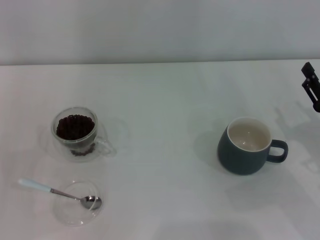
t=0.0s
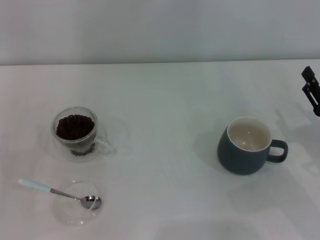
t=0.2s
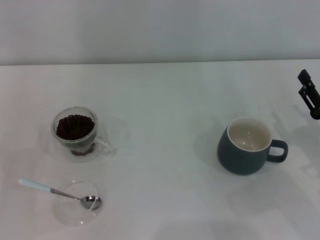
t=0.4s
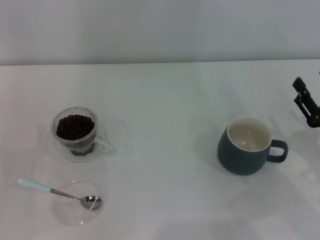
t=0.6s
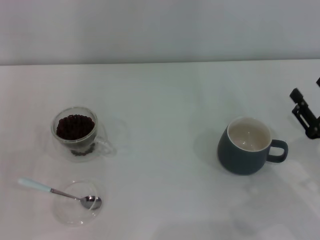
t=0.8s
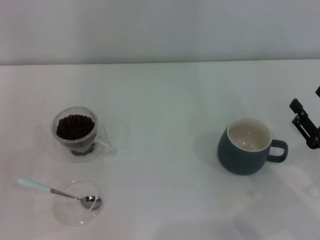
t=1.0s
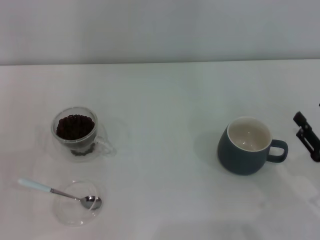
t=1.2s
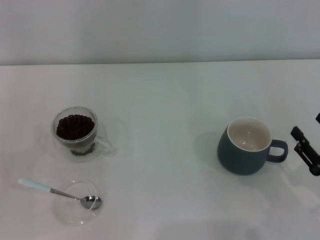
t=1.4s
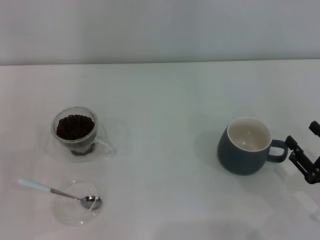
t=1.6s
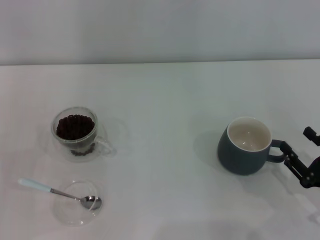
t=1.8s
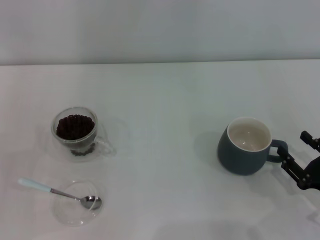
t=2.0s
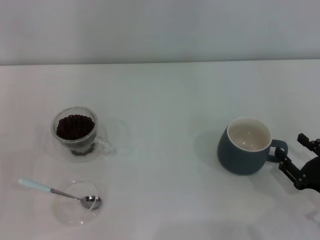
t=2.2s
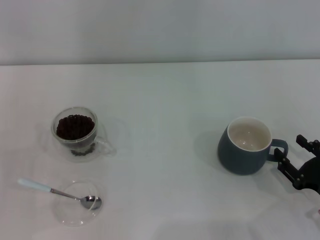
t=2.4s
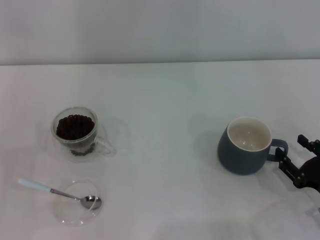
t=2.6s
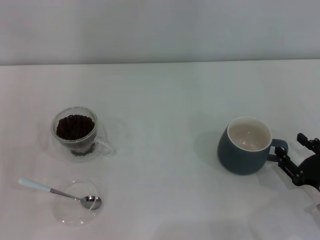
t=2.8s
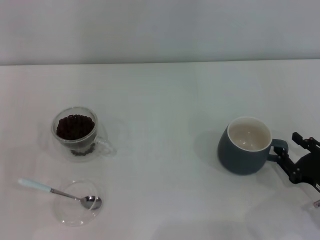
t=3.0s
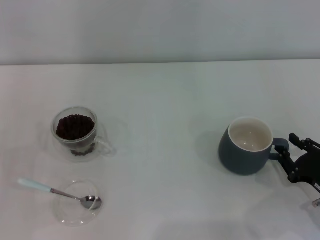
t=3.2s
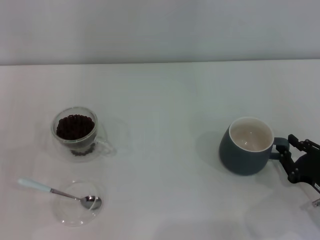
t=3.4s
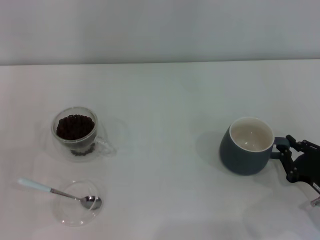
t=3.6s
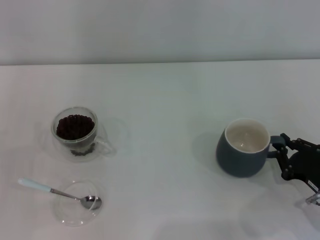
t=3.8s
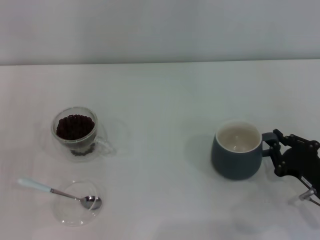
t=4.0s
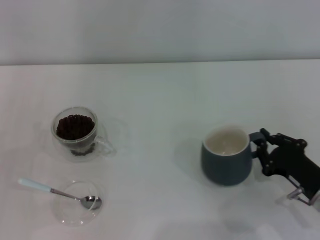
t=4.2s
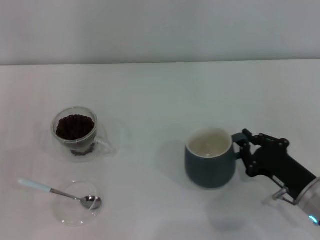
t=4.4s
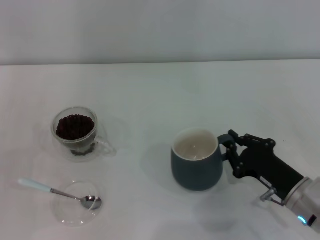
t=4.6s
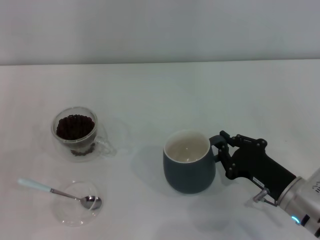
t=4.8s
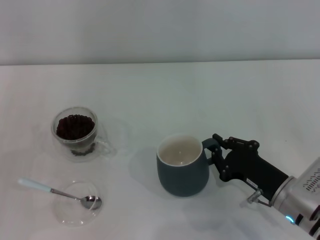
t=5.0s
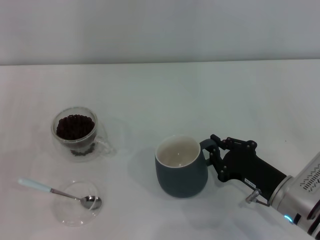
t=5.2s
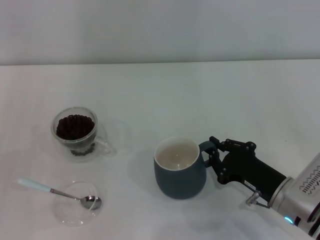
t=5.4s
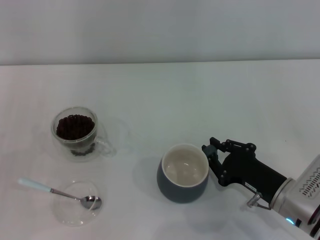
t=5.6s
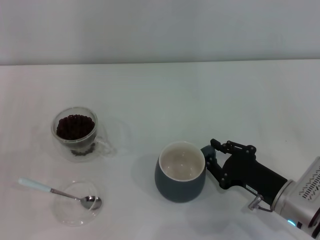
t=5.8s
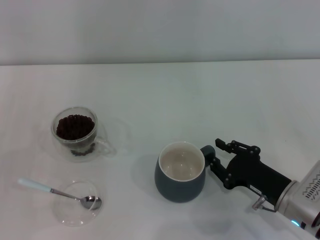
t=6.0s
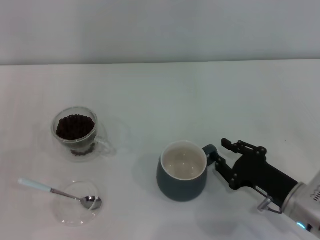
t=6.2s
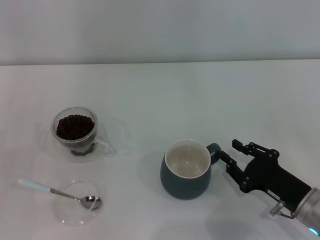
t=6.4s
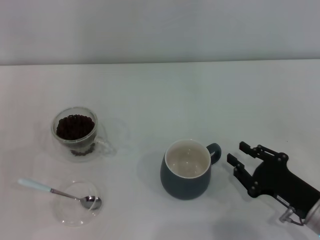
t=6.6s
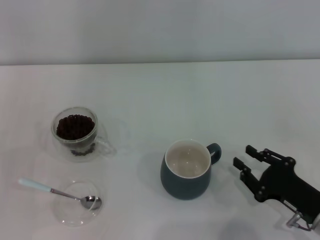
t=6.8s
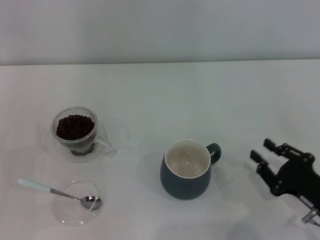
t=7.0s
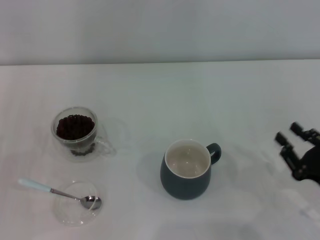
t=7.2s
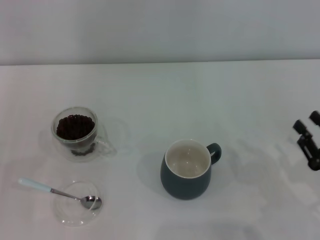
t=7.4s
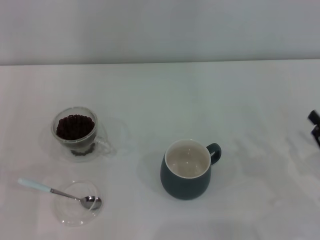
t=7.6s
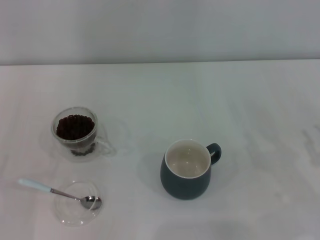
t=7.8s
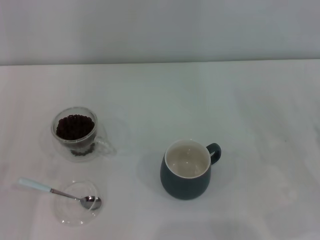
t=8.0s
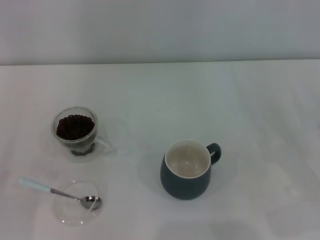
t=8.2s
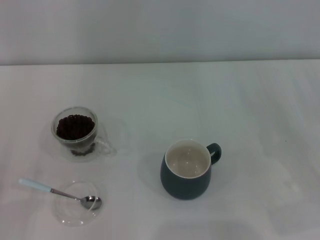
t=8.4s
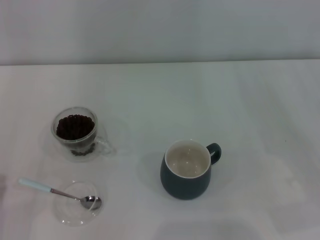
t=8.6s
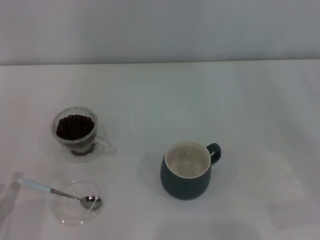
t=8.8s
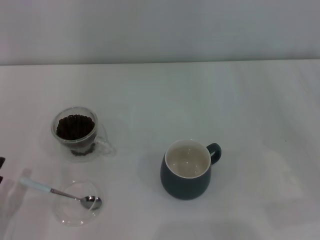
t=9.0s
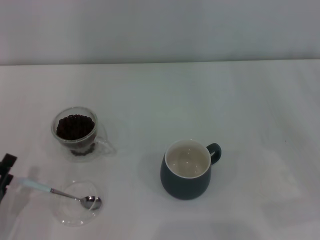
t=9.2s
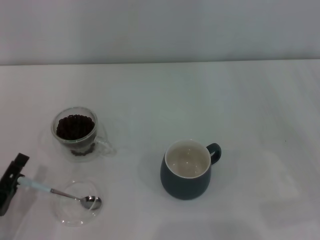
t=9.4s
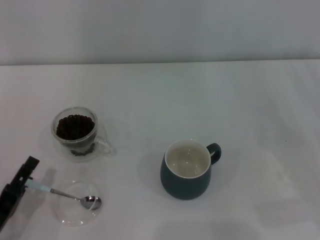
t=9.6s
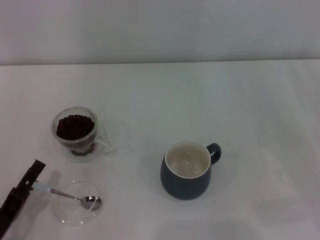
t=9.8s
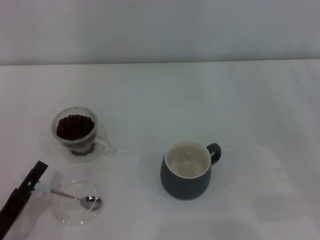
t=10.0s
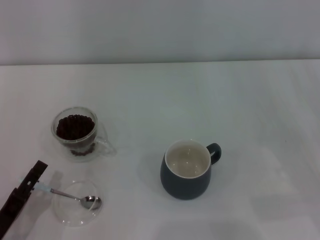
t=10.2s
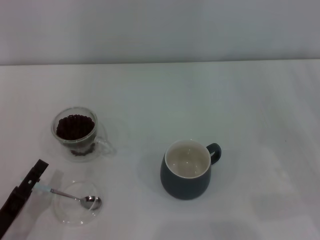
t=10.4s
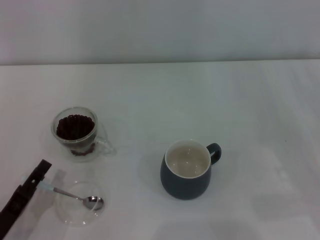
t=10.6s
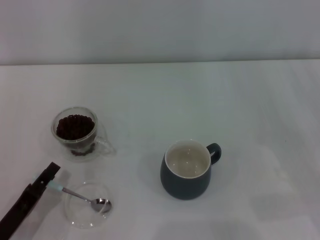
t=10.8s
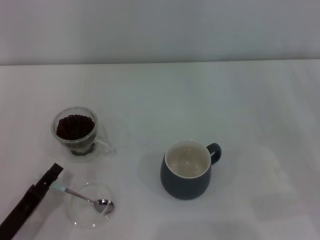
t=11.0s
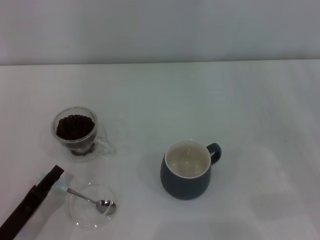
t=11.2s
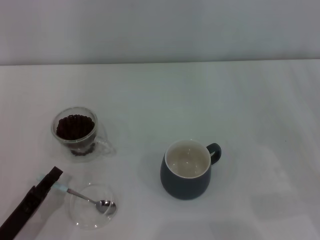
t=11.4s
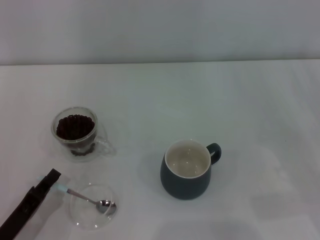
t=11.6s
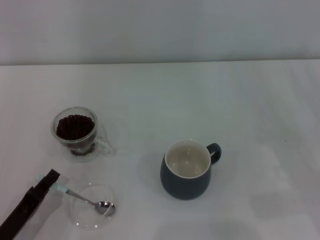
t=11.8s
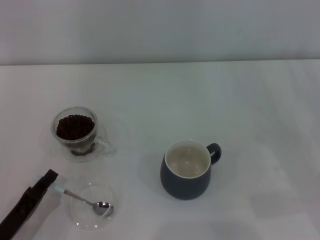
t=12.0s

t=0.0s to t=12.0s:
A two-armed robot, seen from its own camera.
Task of the whole recording: Use a blue spoon to take out the coffee beans from the glass and pour them into the gray cup.
t=0.0s to t=1.6s: The right gripper is displaced backward by approximately 5 cm.
t=1.6s to t=3.0s: The grippers make only small movements.
t=3.0s to t=4.4s: The right gripper is displaced to the left by about 5 cm, and closes its fingers.
t=4.4s to t=6.0s: The grippers stay close to where they were, moving slightly.
t=6.0s to t=7.6s: The right gripper heads to the right, covering some 10 cm.
t=7.6s to t=9.0s: The left gripper ends up some 5 cm from where it was.
t=9.0s to t=10.4s: The grippers stay close to where they were, moving slightly.
t=10.4s to t=12.0s: The left gripper closes its fingers.

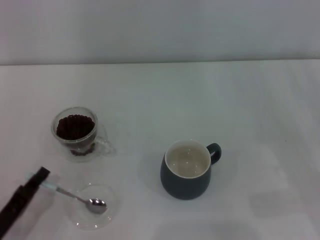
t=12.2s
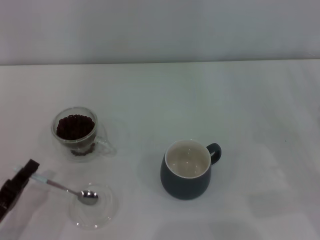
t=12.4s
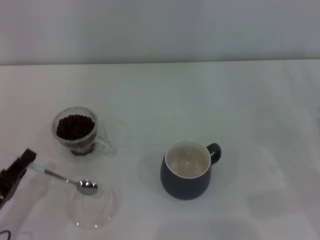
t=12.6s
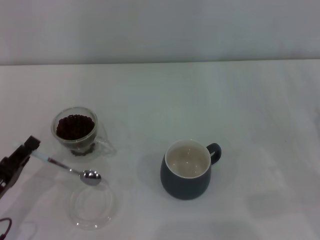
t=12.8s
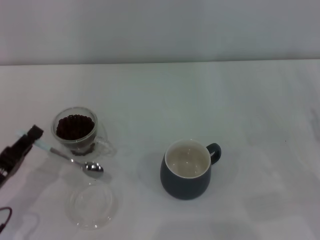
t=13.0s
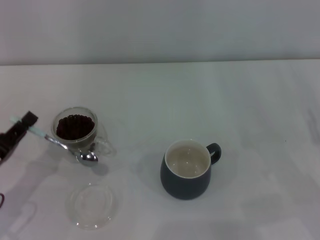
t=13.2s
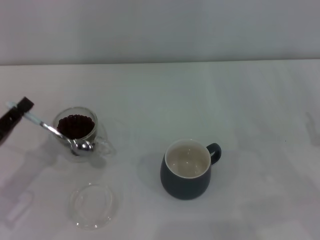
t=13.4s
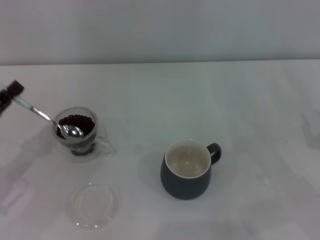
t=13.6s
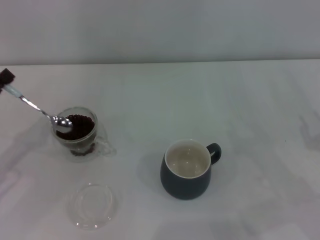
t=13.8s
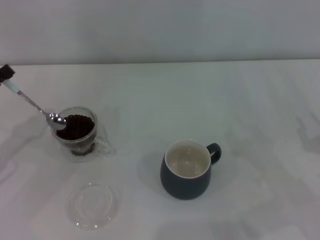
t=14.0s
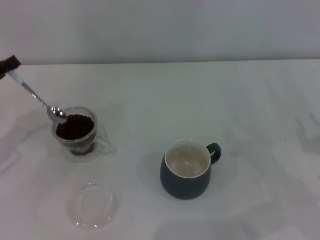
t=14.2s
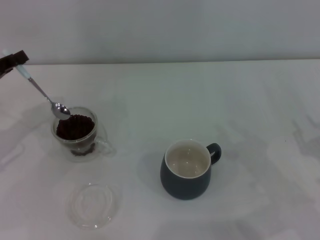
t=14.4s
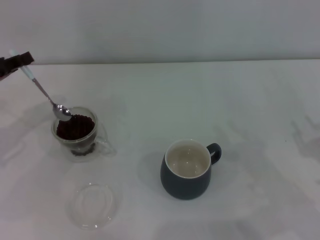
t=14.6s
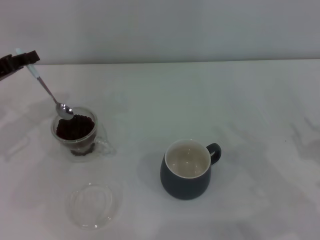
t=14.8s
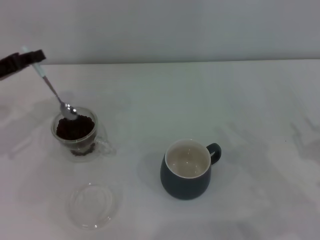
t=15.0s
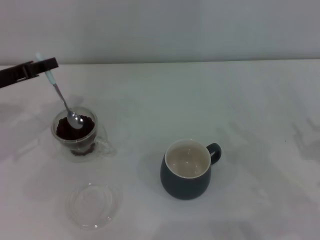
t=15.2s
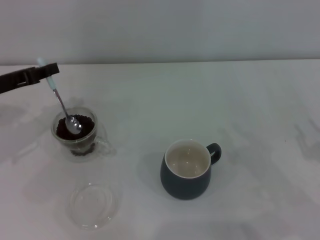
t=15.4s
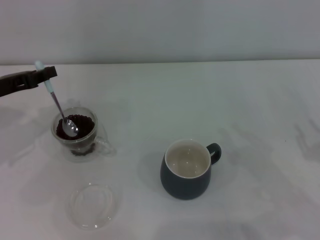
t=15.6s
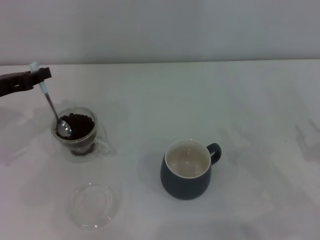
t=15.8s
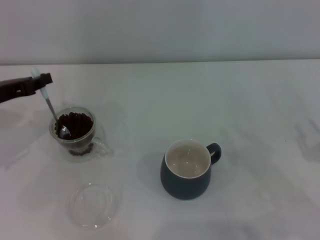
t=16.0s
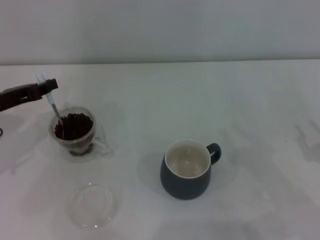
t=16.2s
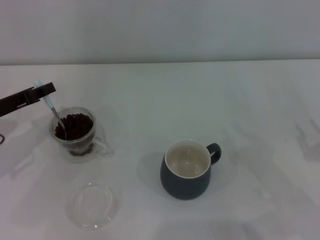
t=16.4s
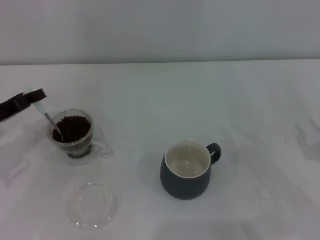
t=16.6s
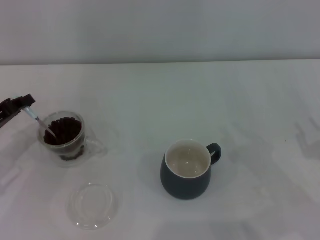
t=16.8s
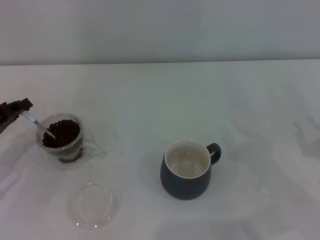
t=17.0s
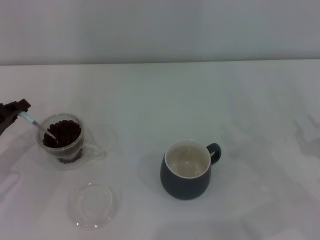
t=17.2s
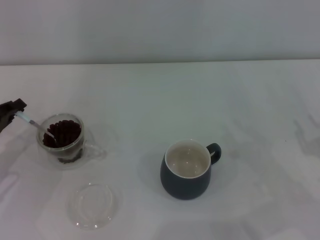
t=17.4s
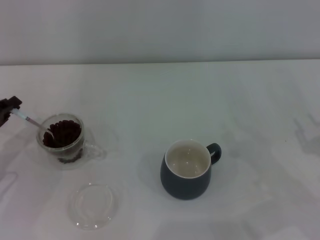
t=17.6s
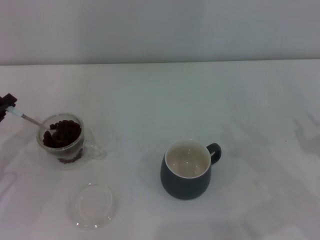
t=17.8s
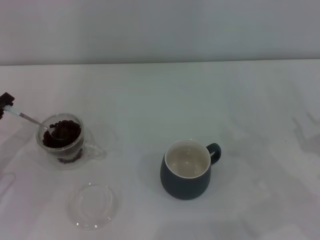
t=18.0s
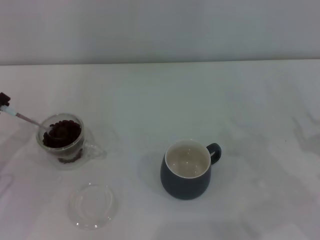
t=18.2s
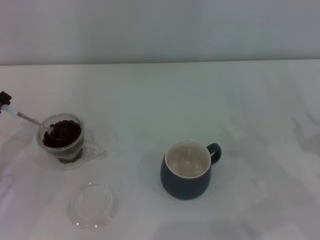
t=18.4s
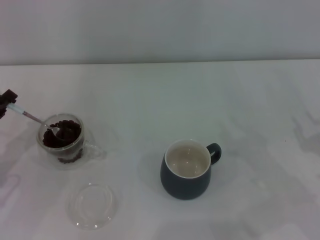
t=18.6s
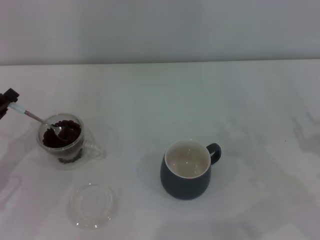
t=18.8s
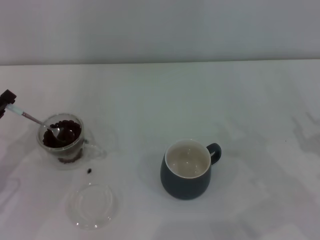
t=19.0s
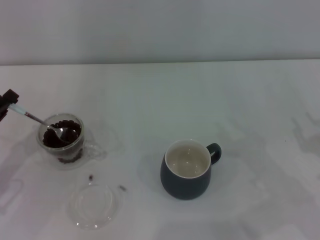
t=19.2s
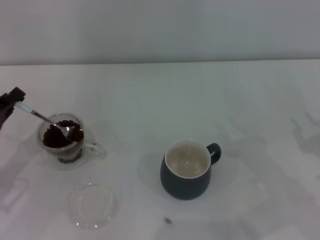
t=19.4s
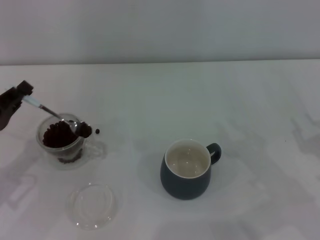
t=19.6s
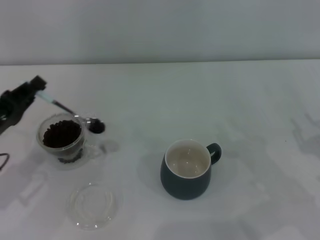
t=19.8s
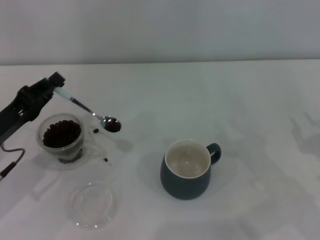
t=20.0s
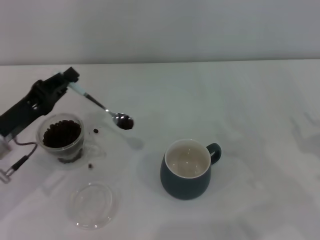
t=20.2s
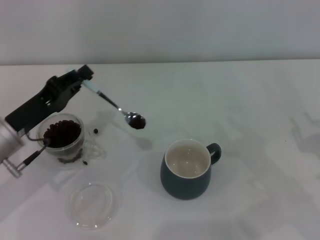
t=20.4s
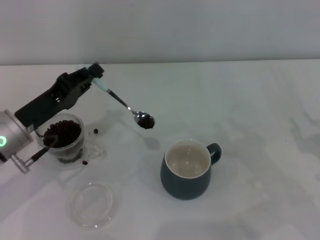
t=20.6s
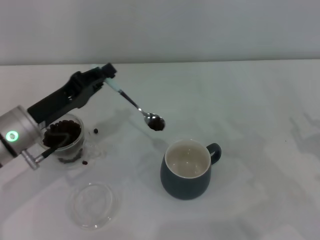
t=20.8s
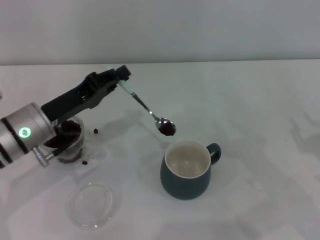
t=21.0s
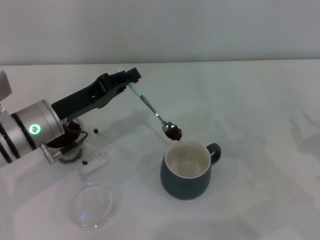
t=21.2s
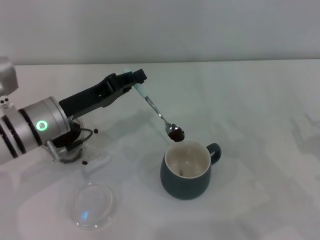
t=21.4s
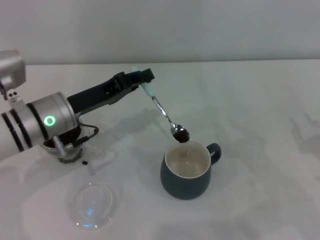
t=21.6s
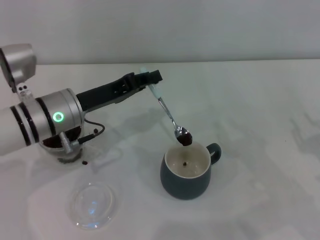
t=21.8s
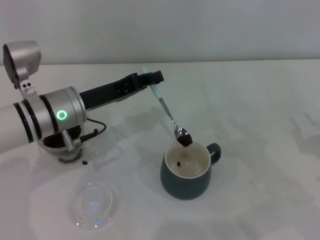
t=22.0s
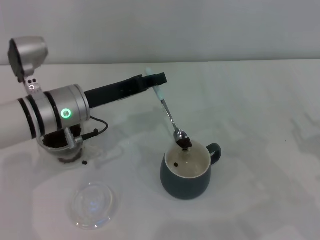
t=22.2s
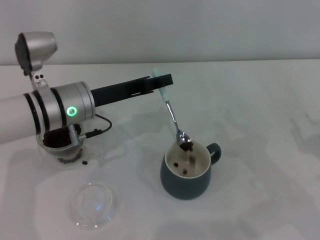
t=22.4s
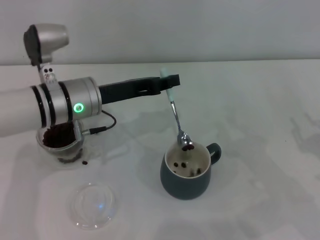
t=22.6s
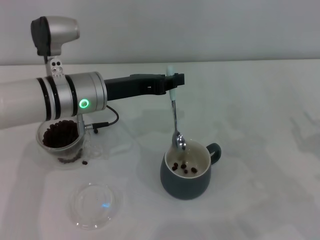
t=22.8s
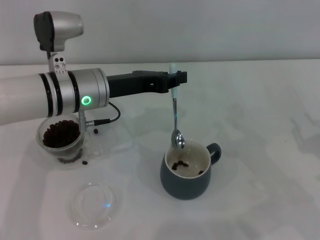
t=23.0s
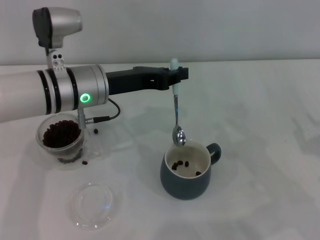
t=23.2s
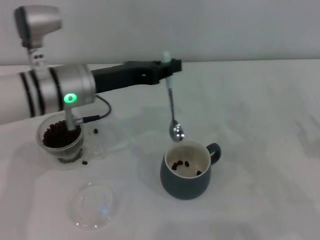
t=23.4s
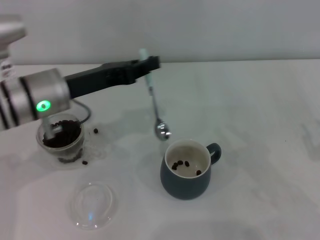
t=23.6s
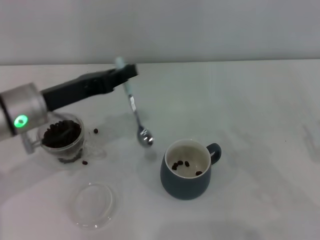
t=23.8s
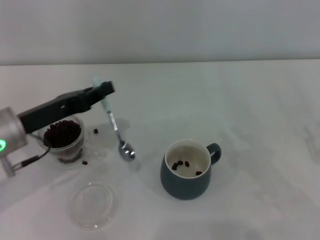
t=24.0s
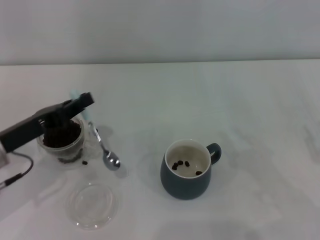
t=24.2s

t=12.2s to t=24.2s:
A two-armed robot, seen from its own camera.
Task of the whole recording: Use a blue spoon to take out the coffee beans from the glass and pour them into the gray cup.
t=12.2s to t=13.8s: The left gripper shifts roughly 15 cm forward, upward and to the left.
t=13.8s to t=15.2s: The left gripper travels forward by roughly 10 cm.
t=15.2s to t=16.6s: The left gripper ends up some 5 cm from where it was.
t=16.6s to t=18.2s: The left gripper ends up about 5 cm from where it was.
t=18.2s to t=19.8s: The grippers move only a little.
t=19.8s to t=21.2s: The left gripper heads to the right and forward, covering about 10 cm.
t=21.2s to t=22.6s: The left gripper shifts approximately 5 cm to the right.
t=22.6s to t=24.2s: The left gripper travels to the left and backward by approximately 15 cm.
